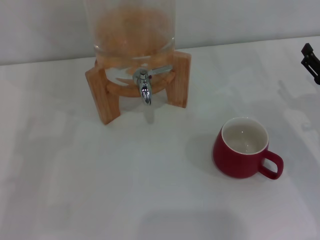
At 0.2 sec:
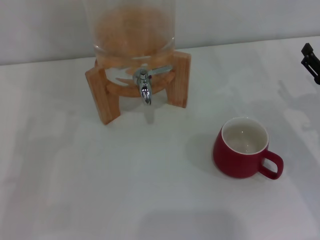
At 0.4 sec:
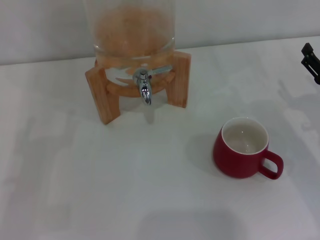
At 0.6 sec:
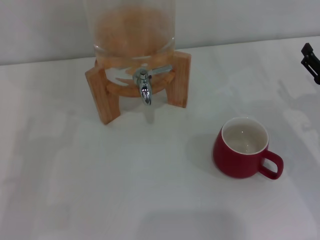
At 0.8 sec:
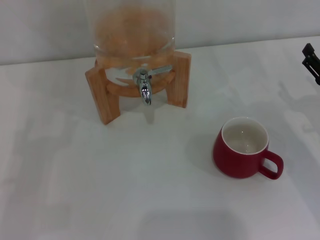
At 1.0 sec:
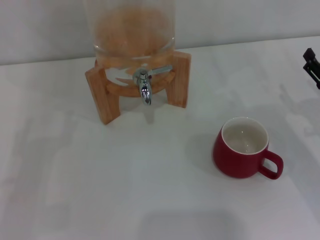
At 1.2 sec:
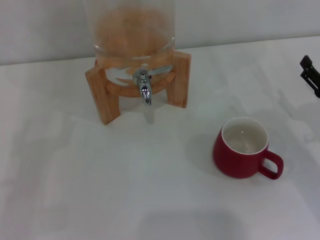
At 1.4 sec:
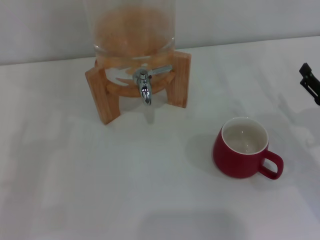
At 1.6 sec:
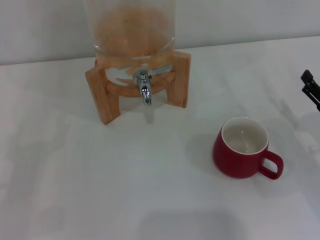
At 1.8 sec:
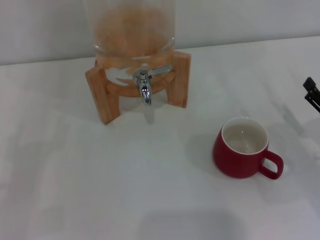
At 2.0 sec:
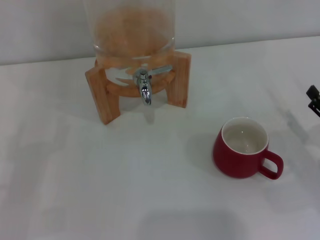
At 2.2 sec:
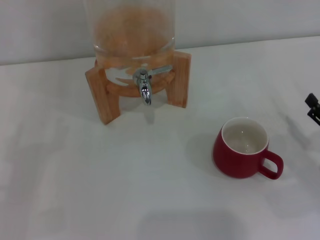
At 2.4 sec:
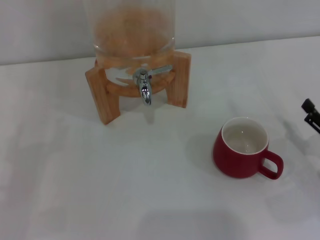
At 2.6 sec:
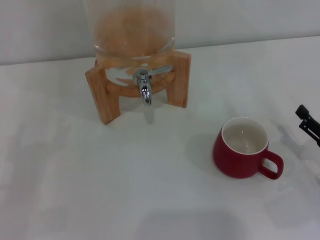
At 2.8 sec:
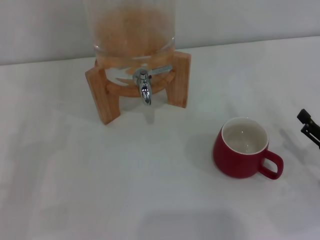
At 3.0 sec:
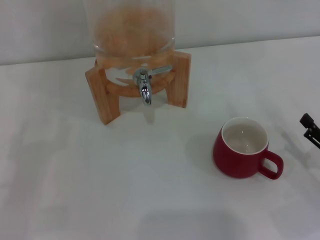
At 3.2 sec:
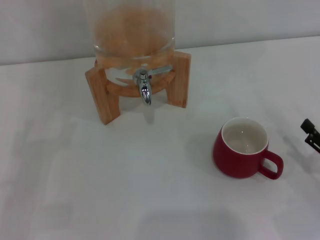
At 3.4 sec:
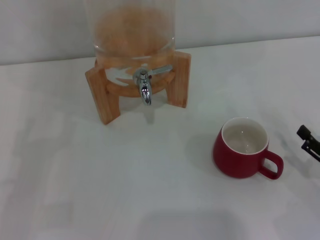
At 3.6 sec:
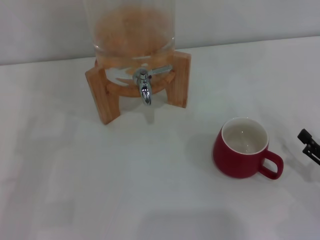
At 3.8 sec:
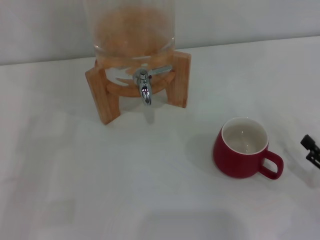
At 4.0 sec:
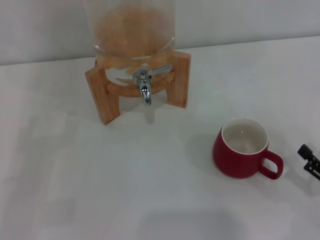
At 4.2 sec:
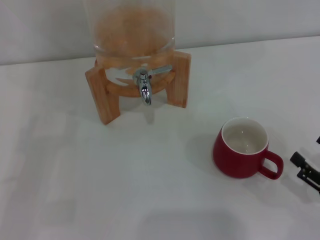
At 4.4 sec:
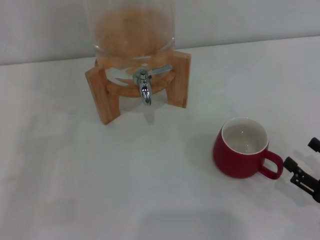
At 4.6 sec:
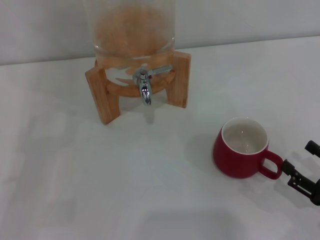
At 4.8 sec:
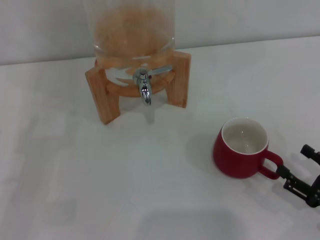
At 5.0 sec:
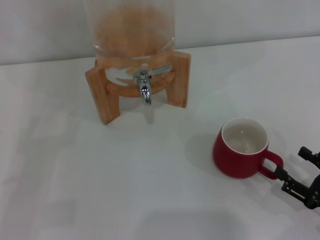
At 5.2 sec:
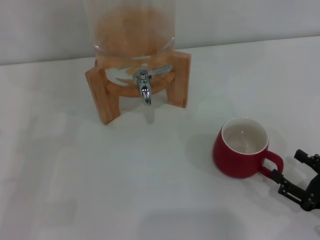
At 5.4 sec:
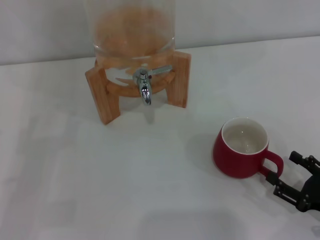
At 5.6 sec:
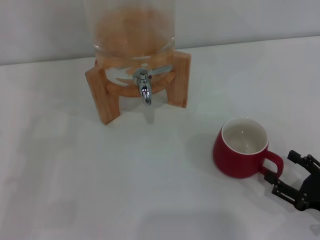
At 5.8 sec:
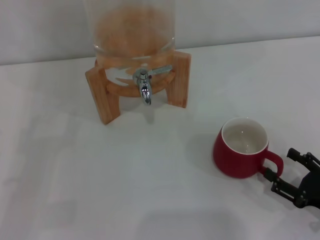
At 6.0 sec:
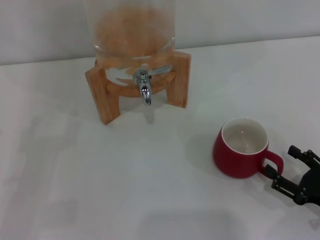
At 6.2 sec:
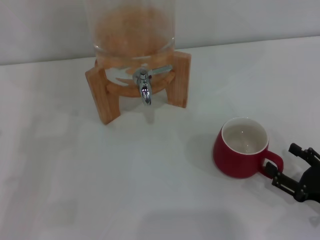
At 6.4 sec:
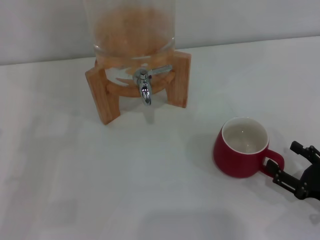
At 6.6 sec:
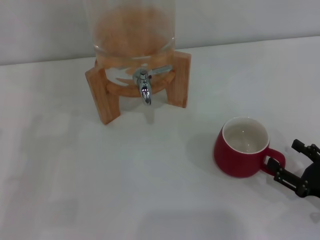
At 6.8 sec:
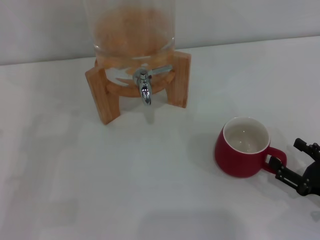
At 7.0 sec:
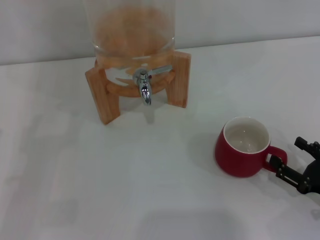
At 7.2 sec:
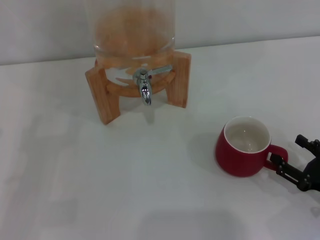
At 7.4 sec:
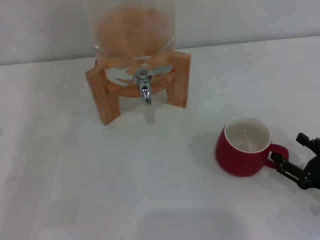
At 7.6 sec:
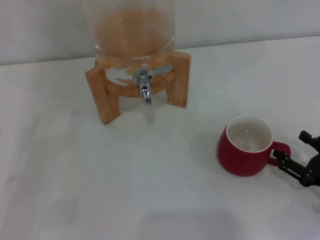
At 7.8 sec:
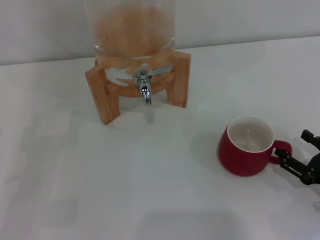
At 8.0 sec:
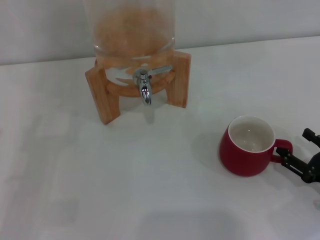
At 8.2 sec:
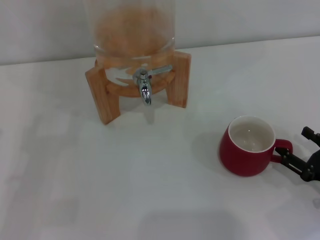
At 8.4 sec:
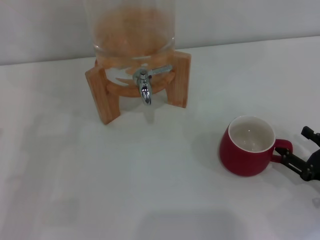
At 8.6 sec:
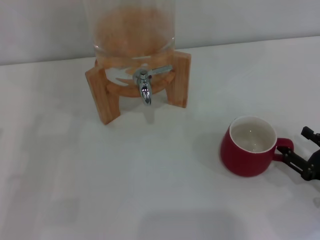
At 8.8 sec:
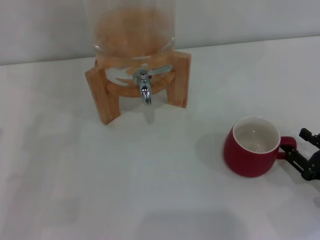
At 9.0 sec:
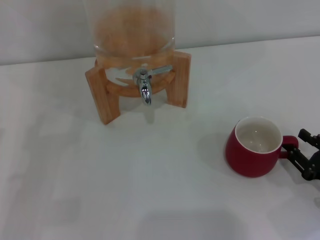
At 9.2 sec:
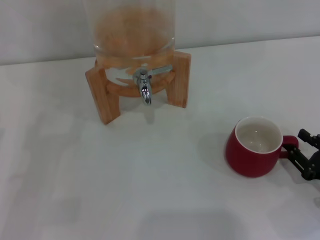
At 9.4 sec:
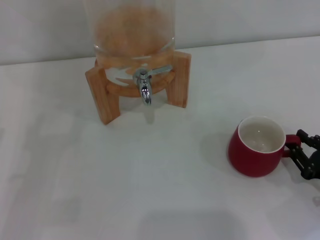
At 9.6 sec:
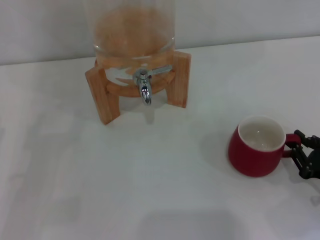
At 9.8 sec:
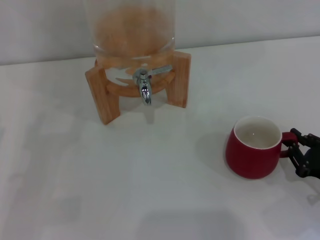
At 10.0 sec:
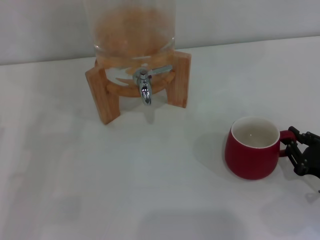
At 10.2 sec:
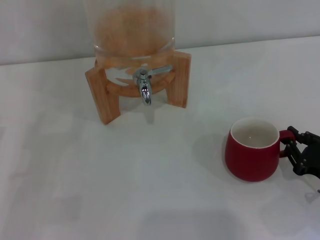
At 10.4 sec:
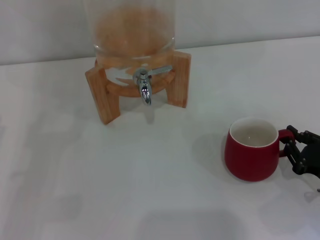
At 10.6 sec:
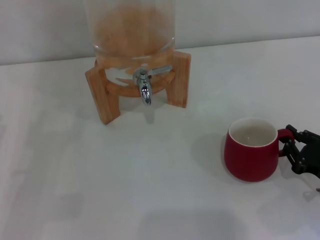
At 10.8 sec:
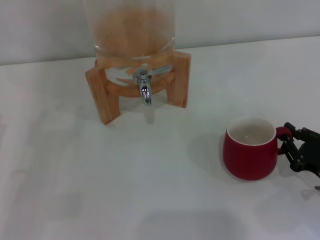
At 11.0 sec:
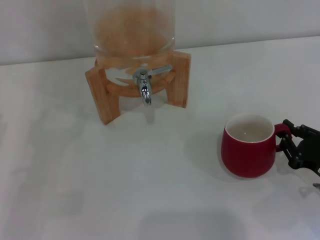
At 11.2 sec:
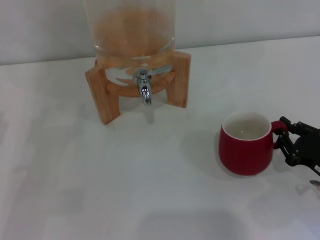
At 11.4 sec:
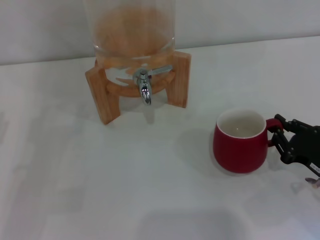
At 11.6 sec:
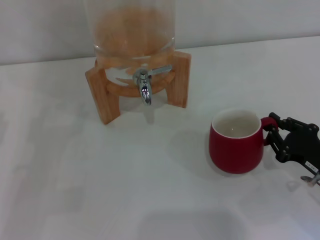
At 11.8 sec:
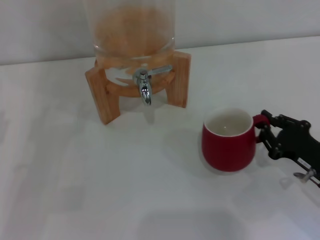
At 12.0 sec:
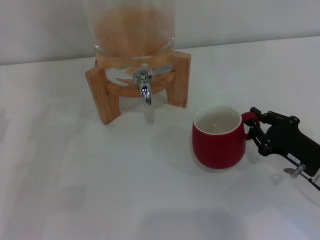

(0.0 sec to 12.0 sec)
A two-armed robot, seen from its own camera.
Task of the whole recording: the right gripper pick up the red cup and place it horizontally under the faucet, the left gripper turn on the faucet to fill the cup, and then turn off the faucet.
0.0 sec - 1.6 sec: The grippers make only small movements.
1.6 sec - 3.0 sec: The right gripper is displaced backward by roughly 5 cm.
3.0 sec - 7.6 sec: The grippers make only small movements.
7.6 sec - 9.0 sec: The two grippers keep their place.
9.0 sec - 10.4 sec: The right gripper closes up.
10.4 sec - 12.0 sec: The right gripper shifts by some 5 cm.

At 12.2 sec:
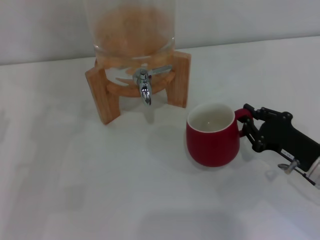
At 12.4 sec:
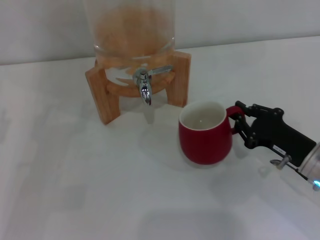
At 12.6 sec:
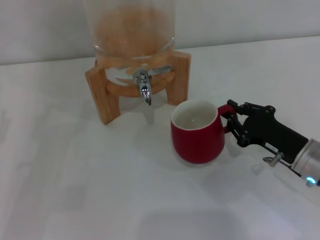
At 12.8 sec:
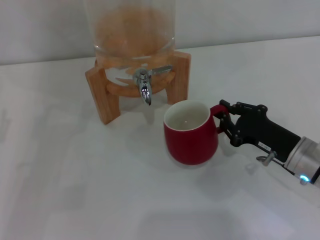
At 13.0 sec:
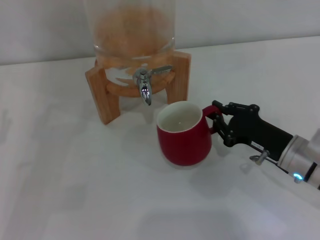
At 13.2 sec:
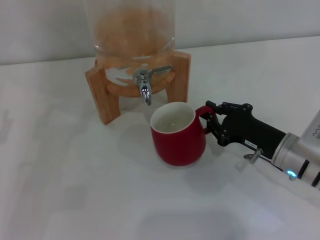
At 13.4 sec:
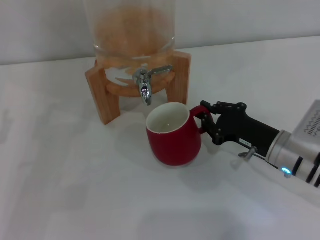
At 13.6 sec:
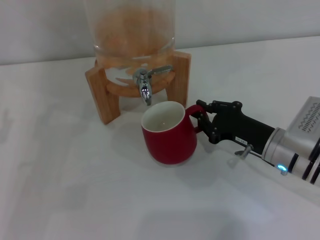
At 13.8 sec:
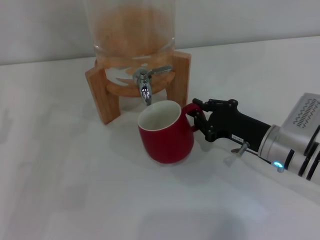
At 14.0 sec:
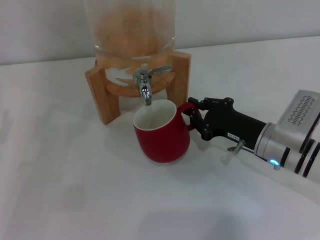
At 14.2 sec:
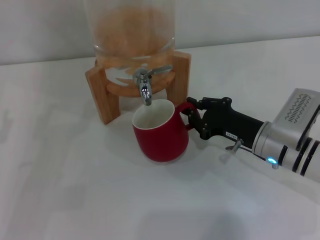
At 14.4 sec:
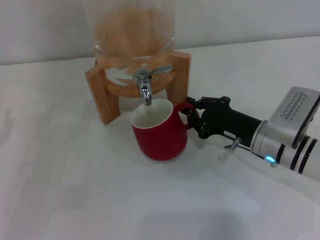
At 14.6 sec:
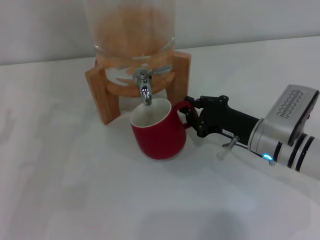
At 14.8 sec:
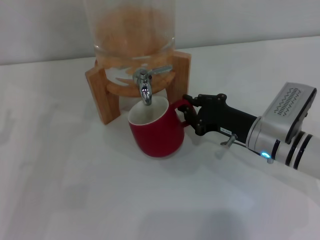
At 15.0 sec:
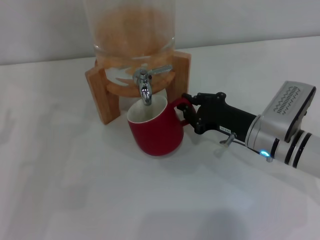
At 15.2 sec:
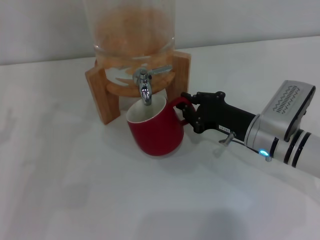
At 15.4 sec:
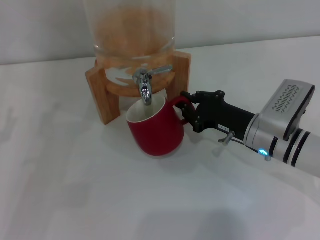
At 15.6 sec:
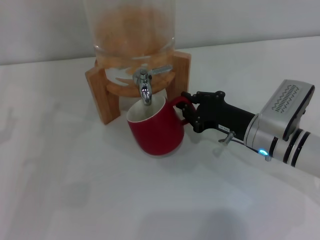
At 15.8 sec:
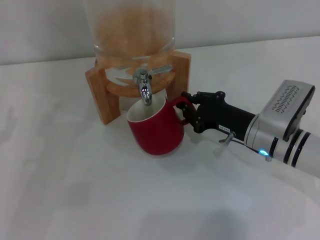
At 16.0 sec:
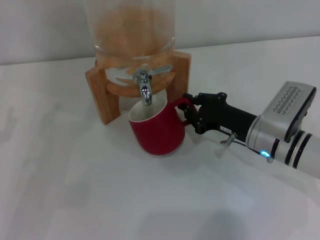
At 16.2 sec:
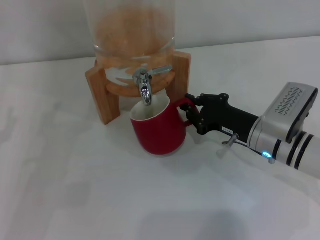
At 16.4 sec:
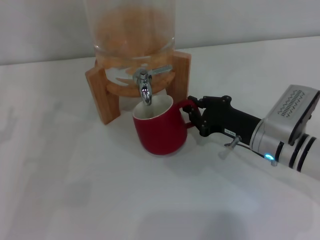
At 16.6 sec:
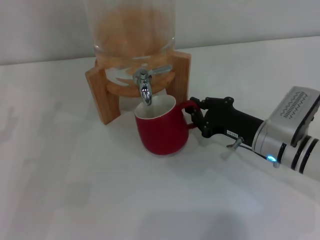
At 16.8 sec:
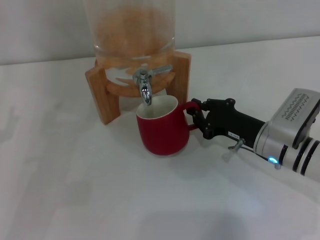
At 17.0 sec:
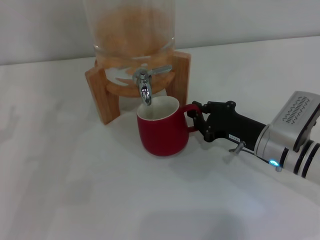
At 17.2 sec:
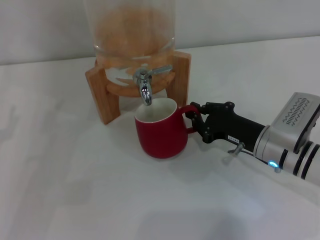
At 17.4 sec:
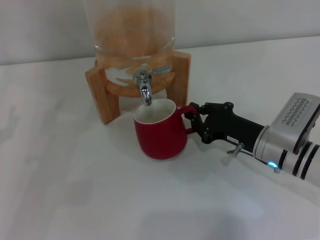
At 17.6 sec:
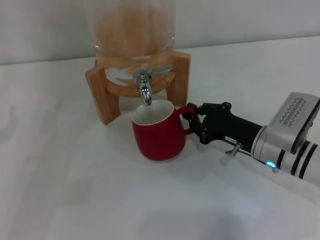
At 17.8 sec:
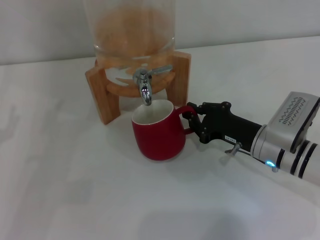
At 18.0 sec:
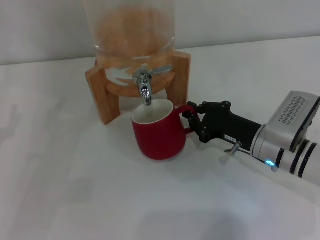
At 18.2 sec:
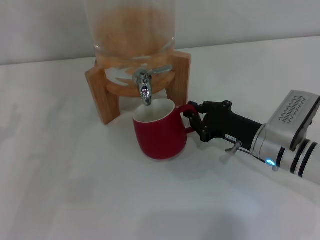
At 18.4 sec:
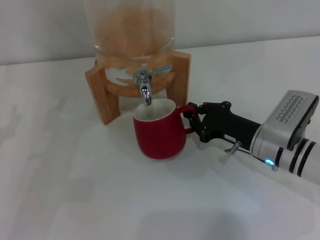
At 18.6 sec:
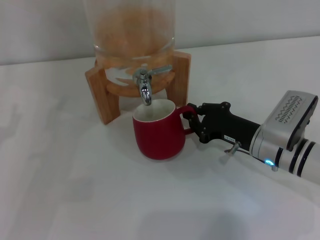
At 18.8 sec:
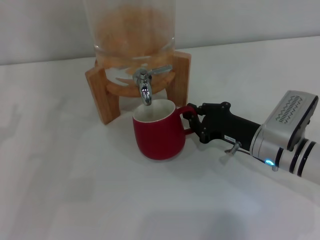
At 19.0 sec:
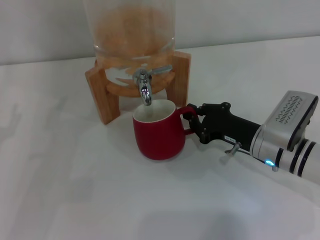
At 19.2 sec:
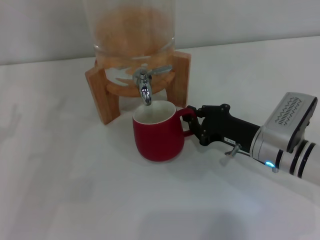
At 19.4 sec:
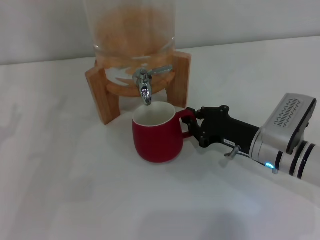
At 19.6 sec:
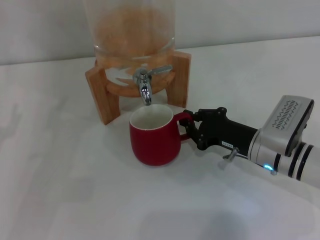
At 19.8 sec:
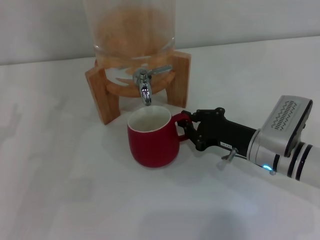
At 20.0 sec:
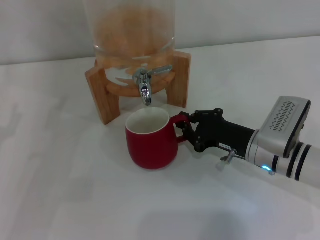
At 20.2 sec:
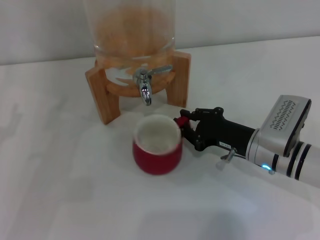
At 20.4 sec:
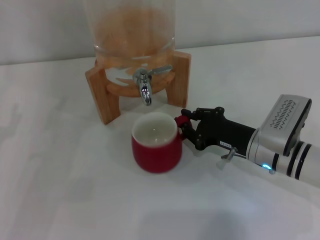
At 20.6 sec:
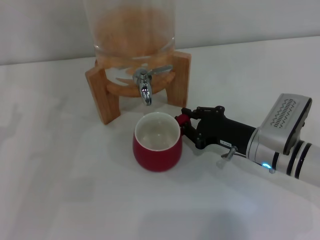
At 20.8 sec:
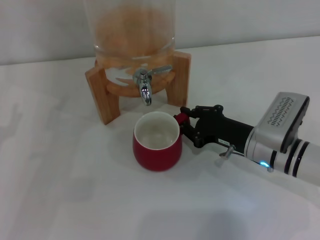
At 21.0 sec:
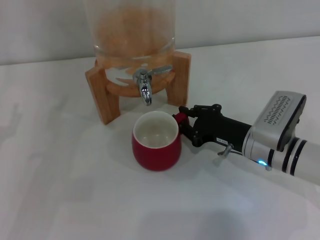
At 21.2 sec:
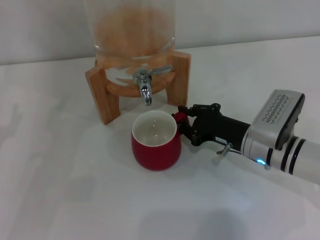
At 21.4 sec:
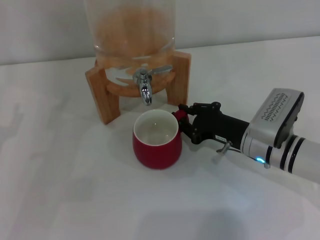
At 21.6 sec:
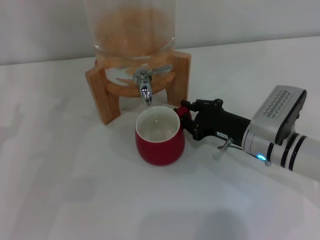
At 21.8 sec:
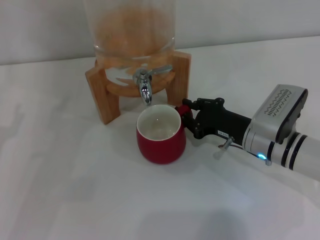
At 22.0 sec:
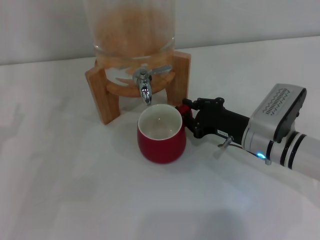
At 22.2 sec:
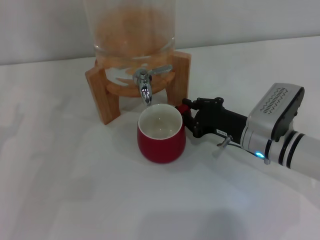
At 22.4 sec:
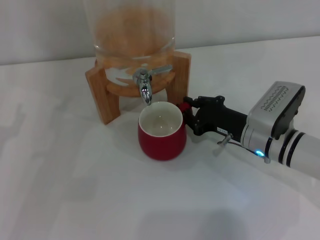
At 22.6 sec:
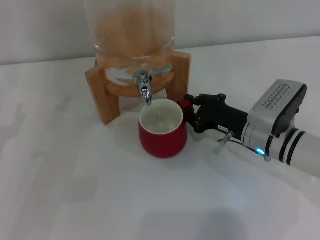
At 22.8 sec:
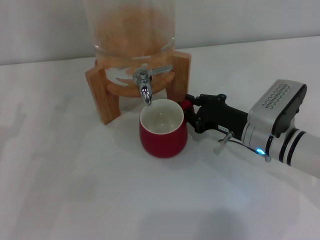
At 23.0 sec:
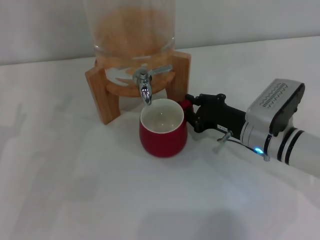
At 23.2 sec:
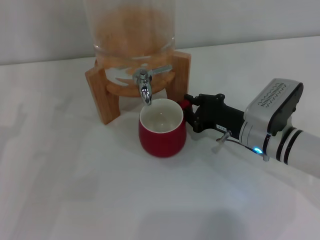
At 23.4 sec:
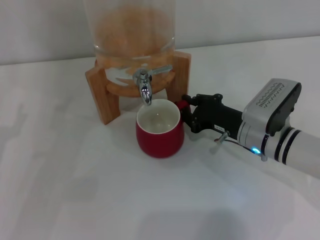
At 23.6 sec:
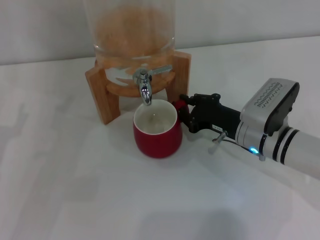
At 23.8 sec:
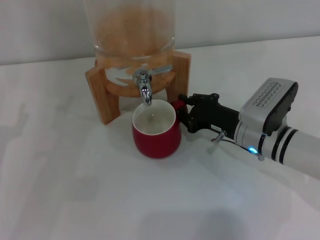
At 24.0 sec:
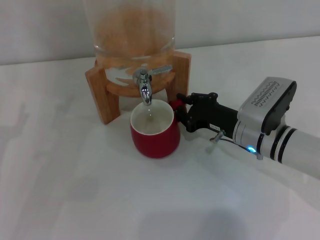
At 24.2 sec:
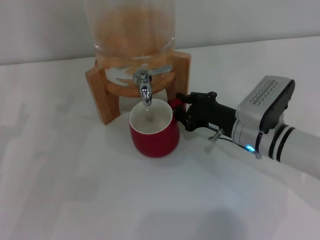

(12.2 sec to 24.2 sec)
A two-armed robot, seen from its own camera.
Task of the whole recording: the right gripper pick up the red cup and place it horizontally under the faucet, the left gripper turn on the faucet to fill the cup, and then turn off the faucet.
12.2 sec - 13.8 sec: The right gripper heads to the left and forward, covering about 10 cm.
13.8 sec - 16.6 sec: The grippers move only a little.
16.6 sec - 18.2 sec: Both grippers stay put.
18.2 sec - 19.8 sec: Neither gripper changes place.
19.8 sec - 21.2 sec: Both grippers stay about where they are.
21.2 sec - 24.2 sec: There are only small adjustments of the grippers.
